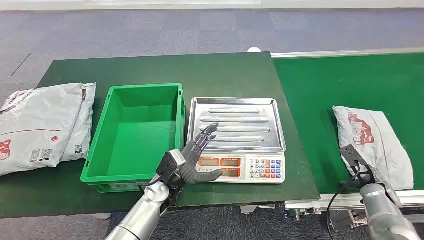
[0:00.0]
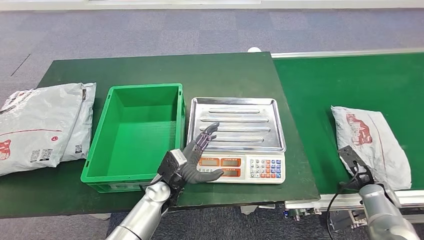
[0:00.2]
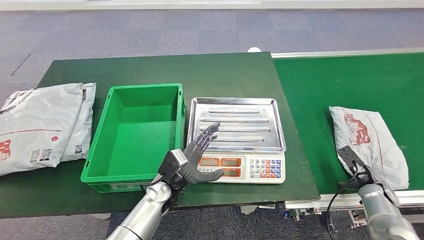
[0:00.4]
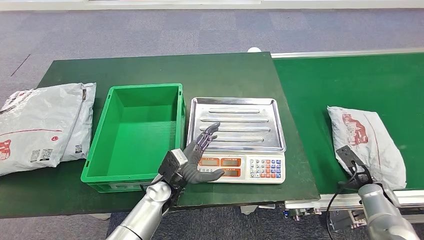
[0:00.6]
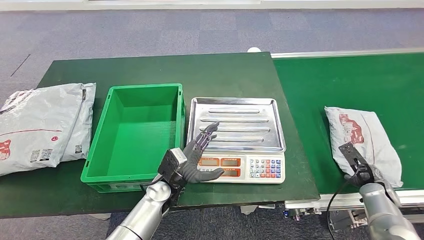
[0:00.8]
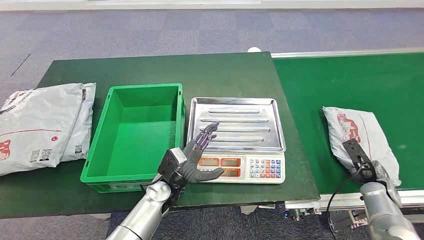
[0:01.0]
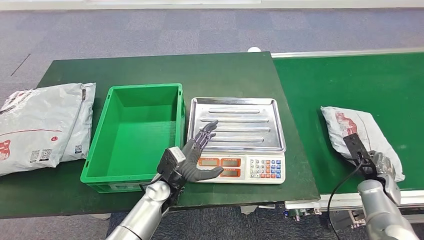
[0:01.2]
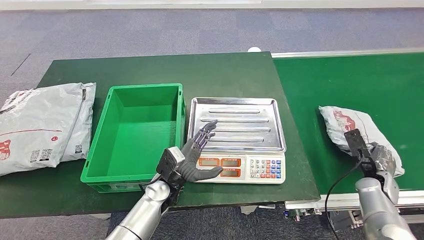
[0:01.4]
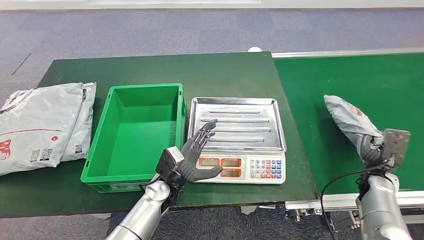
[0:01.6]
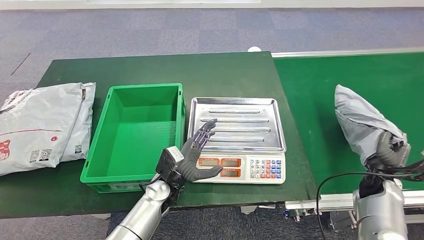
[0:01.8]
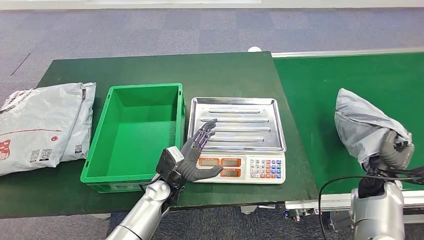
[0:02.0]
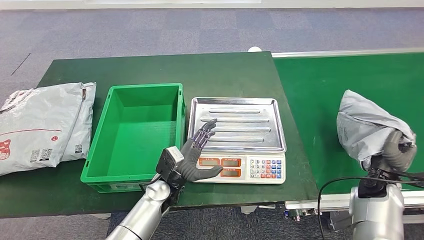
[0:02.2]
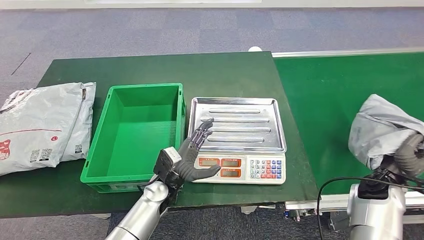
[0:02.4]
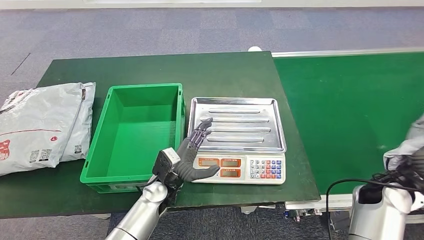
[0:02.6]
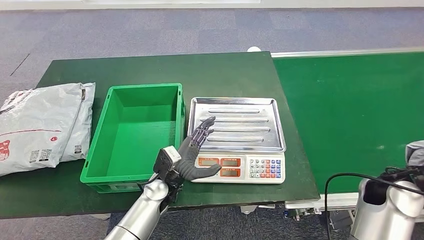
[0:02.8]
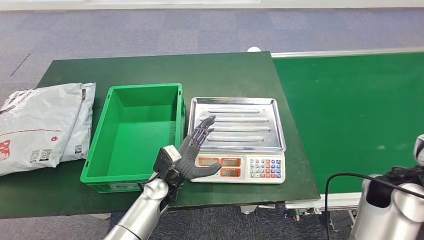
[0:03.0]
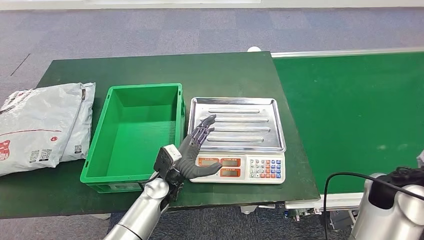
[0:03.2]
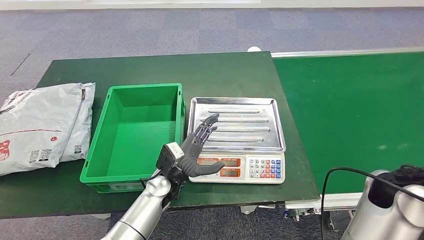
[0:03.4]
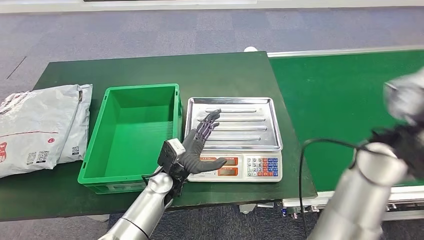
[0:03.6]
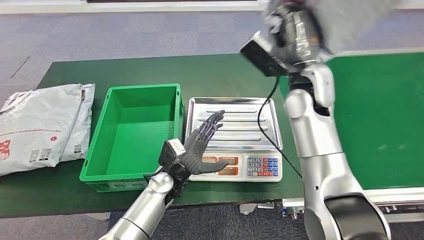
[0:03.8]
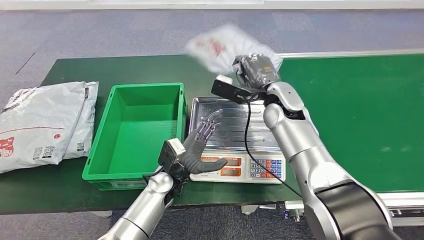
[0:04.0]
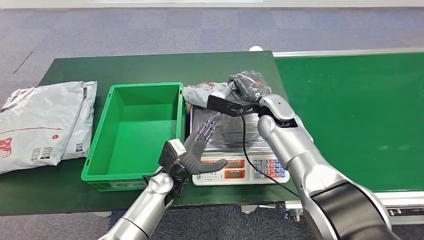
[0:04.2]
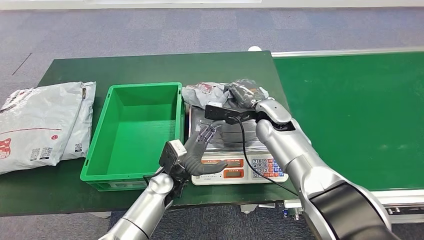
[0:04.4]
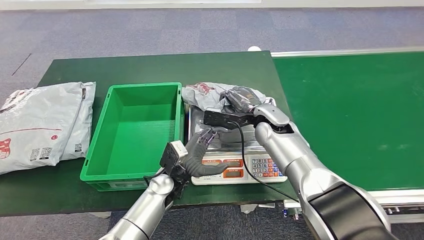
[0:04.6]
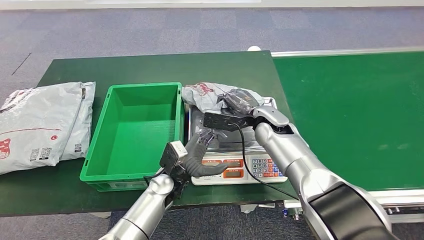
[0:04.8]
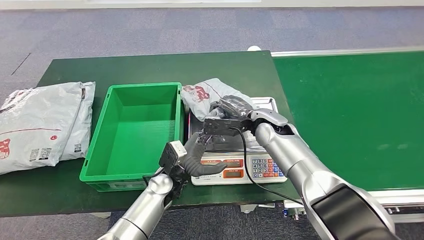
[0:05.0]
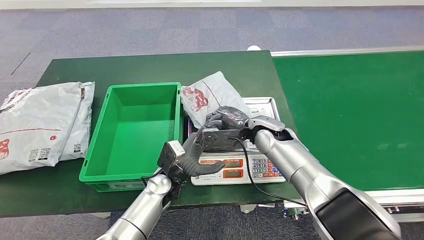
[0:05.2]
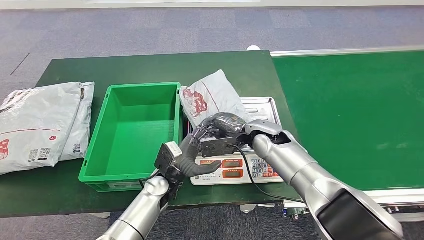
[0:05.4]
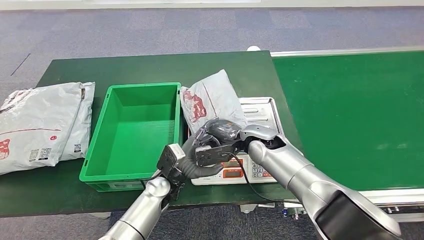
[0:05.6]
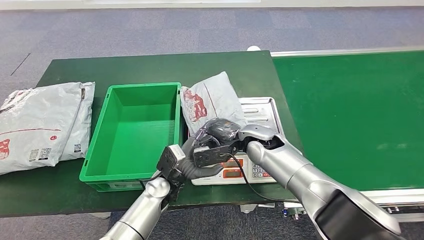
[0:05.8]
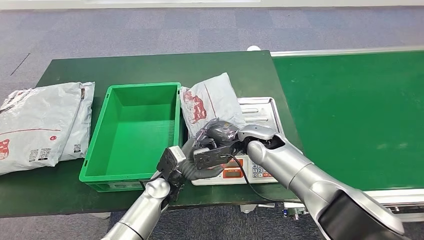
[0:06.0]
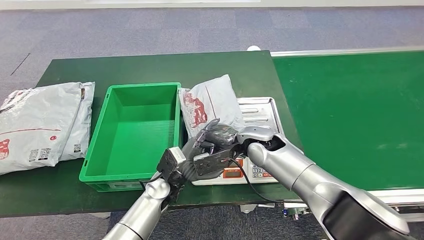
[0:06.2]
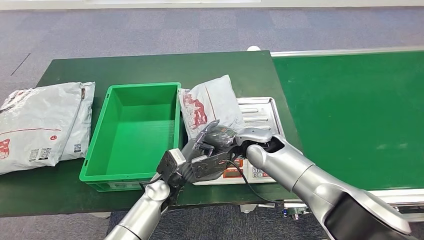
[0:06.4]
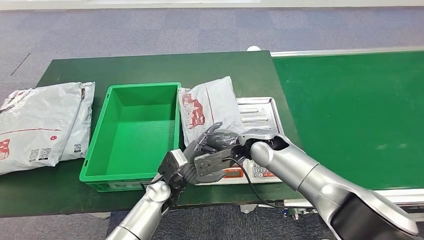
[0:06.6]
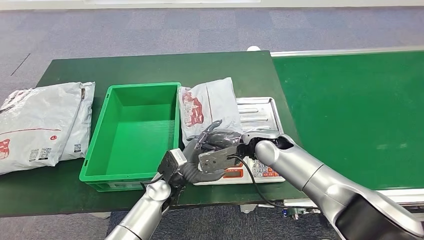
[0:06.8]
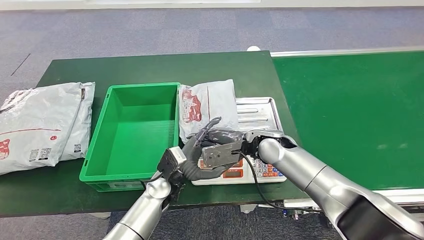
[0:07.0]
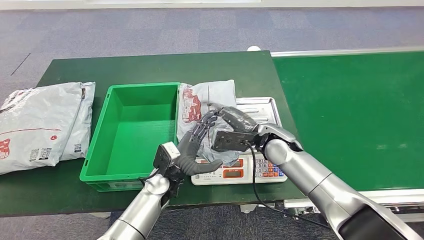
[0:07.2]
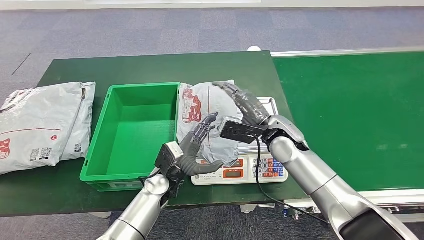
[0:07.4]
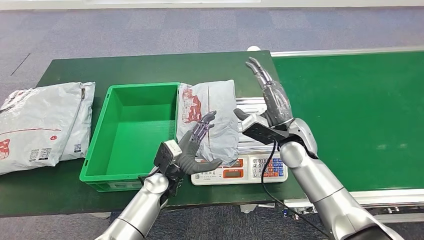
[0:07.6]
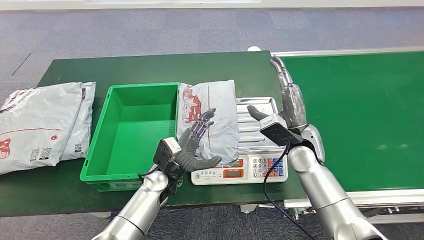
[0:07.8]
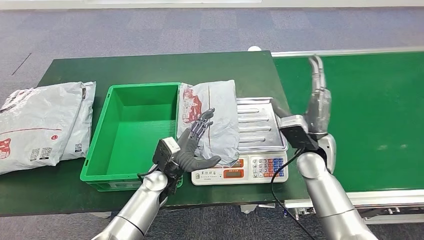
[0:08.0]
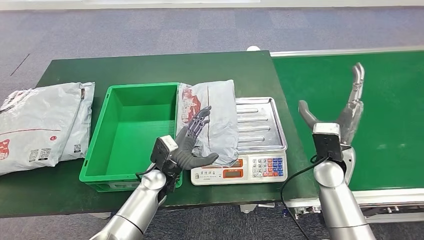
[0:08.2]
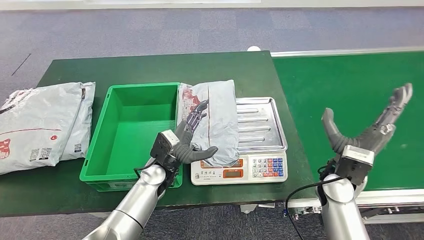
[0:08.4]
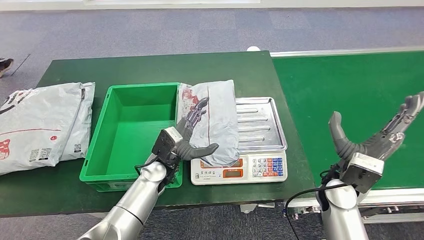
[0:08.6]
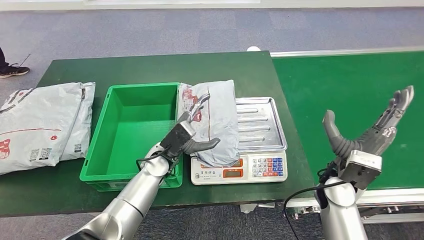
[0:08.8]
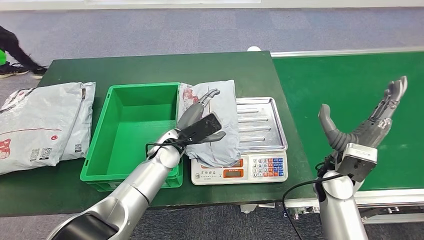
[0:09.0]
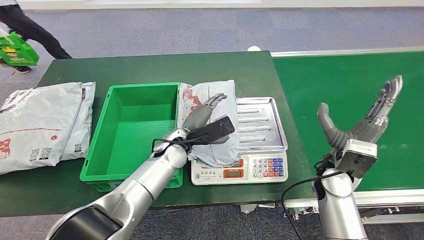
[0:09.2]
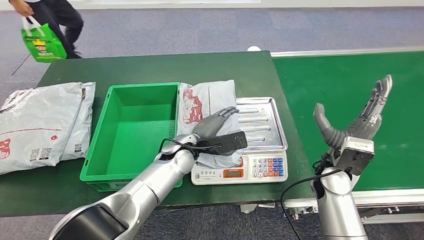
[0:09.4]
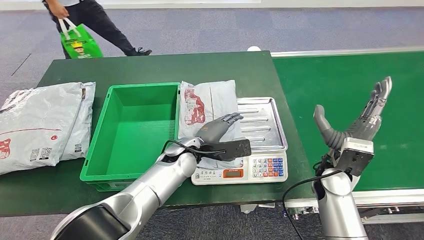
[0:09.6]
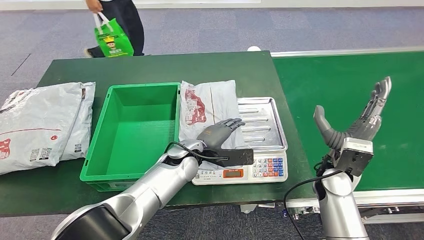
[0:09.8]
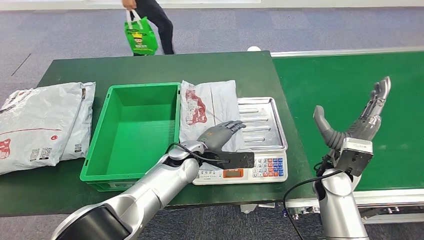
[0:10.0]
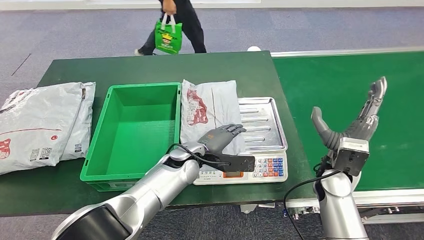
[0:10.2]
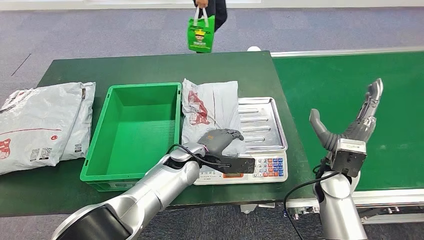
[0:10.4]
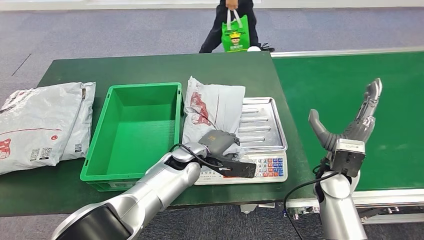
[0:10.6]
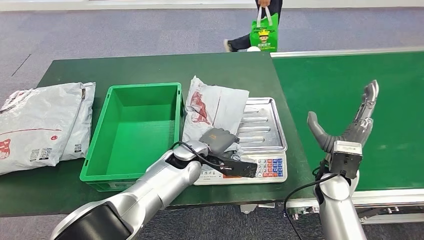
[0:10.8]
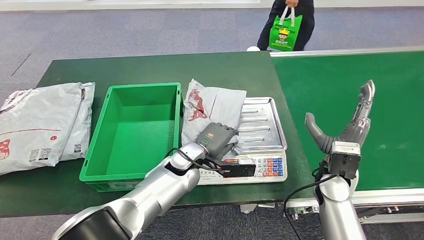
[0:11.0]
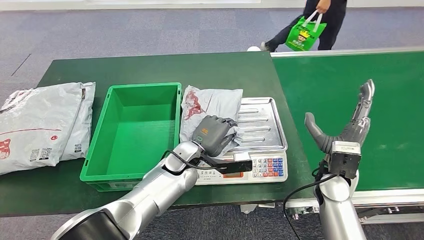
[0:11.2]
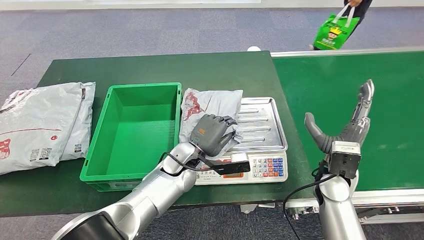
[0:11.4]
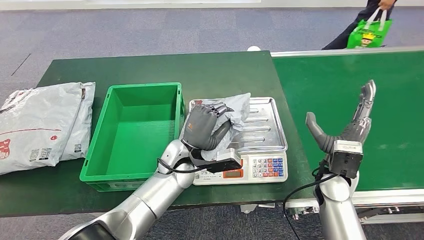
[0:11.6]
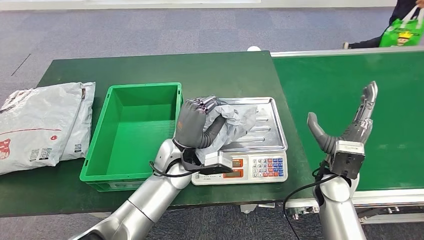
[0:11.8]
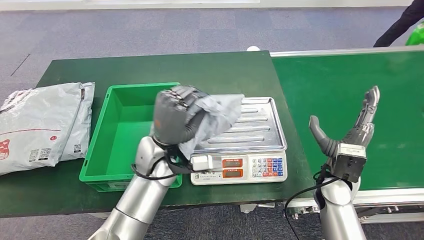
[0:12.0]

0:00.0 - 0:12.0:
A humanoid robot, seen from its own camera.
Step, 0:00.0 - 0:02.8: Take the parcel off the conveyor belt.
Step, 0:03.2 - 0:05.0: Place the parcel onto the inbound machine.
0:01.6 - 0:03.0: The right hand moves upward and to the left, some 20 cm.
0:04.4 - 0:06.0: The right hand shifts by roughly 5 cm.
0:06.0 - 0:07.6: The right hand is displaced to the right by some 5 cm.
0:09.0 - 0:10.4: The left hand ends up roughly 5 cm from where it was.
0:10.4 - 0:12.0: The left hand moves upward, roughly 5 cm.

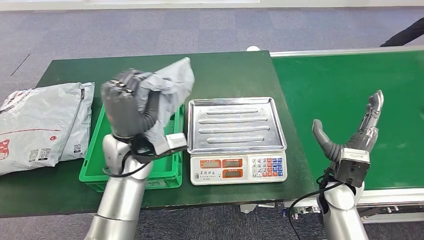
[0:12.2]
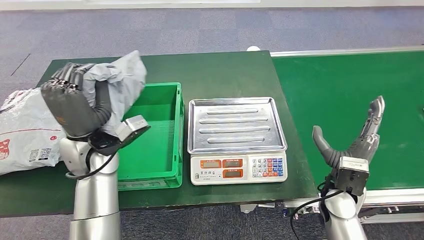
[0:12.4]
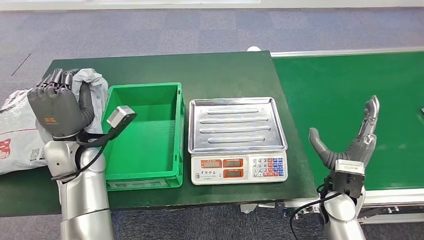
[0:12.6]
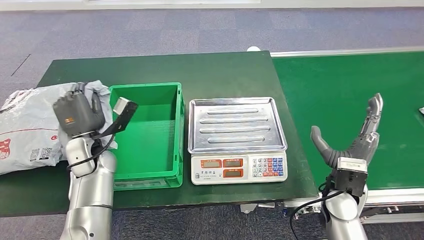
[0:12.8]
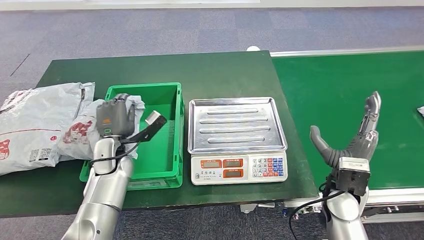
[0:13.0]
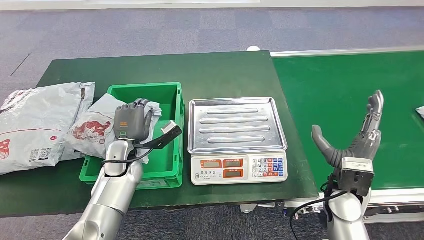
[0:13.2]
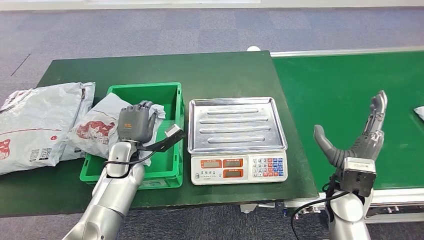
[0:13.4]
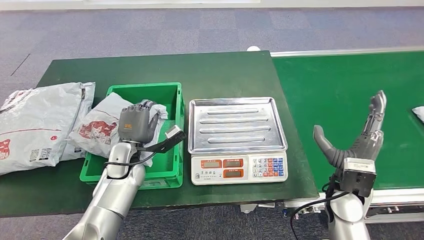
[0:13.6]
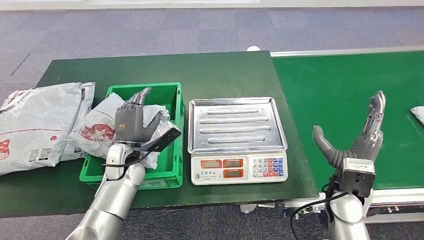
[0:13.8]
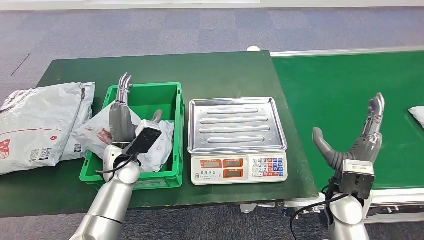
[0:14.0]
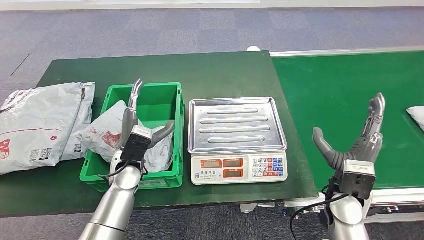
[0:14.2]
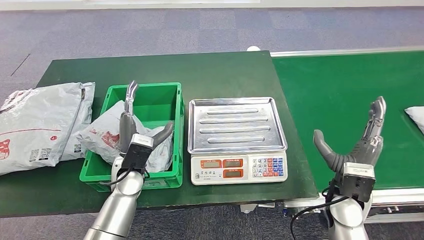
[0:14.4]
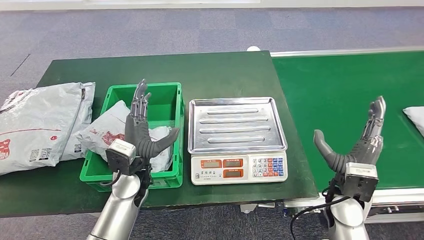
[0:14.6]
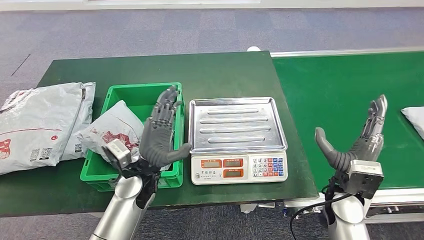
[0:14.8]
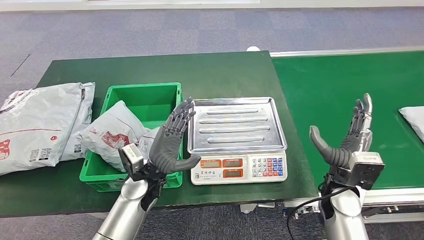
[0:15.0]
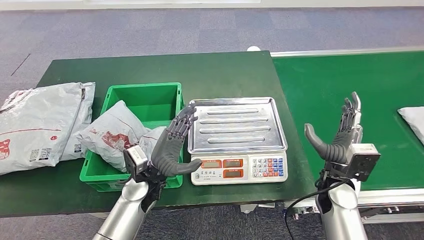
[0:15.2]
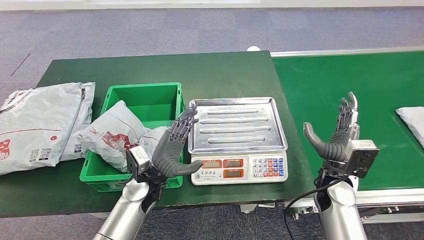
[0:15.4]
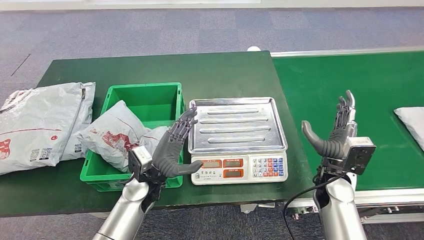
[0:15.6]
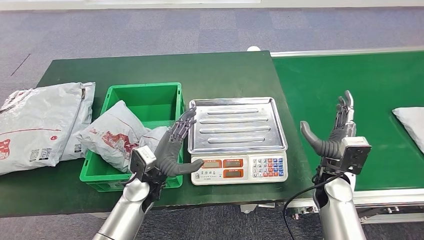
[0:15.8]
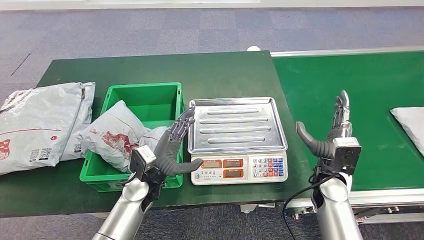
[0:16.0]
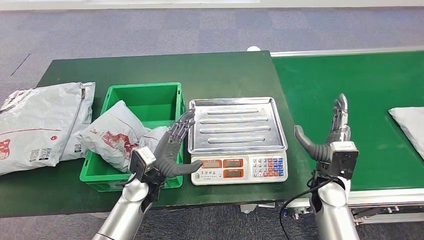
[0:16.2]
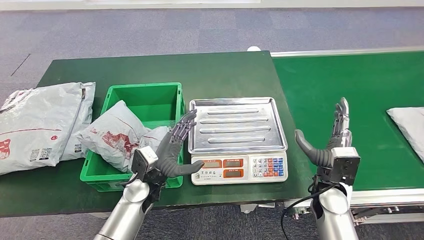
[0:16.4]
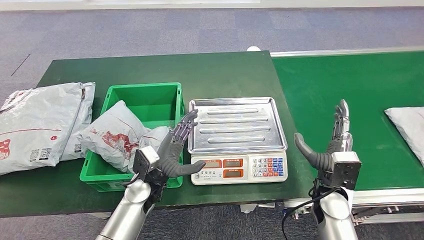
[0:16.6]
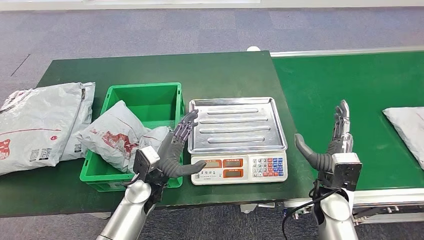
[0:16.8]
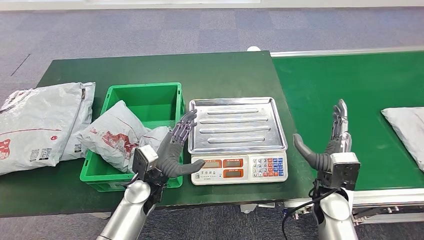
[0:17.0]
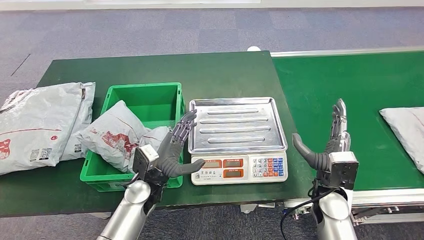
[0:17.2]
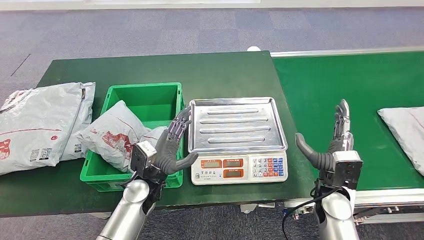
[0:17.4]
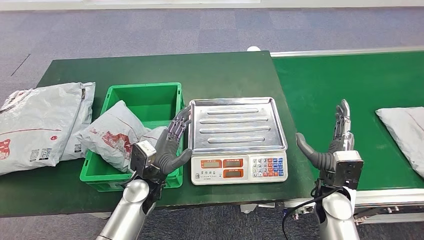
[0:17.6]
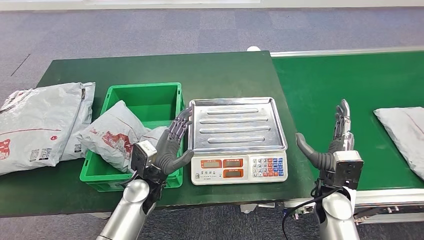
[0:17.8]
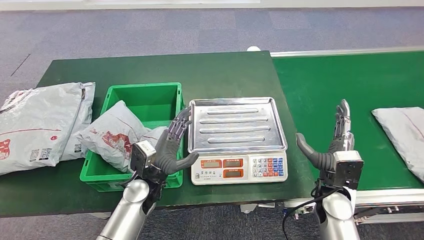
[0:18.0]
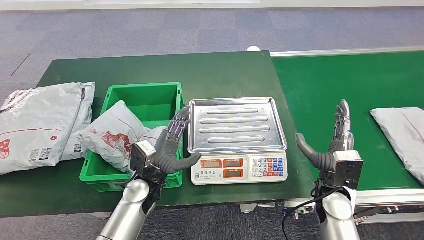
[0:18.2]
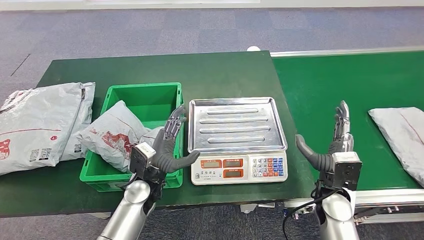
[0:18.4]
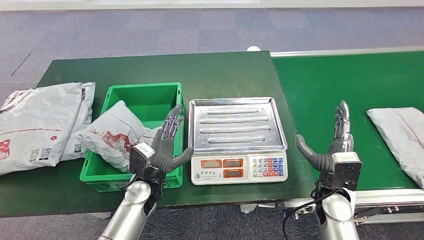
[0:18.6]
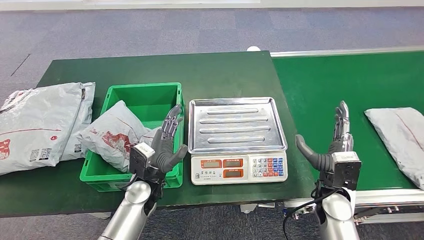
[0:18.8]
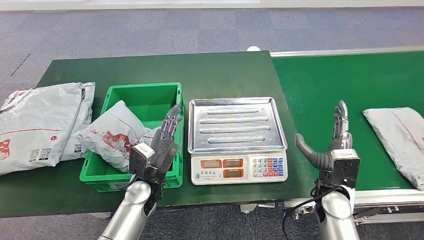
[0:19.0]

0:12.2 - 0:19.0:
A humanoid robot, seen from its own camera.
Step, 0:12.4 - 0:15.2: Put the parcel inside the courier box.
0:12.2 - 0:13.6: The left hand moves downward and to the left, some 15 cm.
0:13.6 - 0:15.0: The left hand heads to the right and backward, covering about 10 cm.
0:15.0 - 0:19.0: The hands stay close to where they were, moving slightly.
